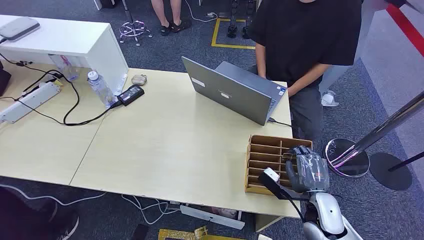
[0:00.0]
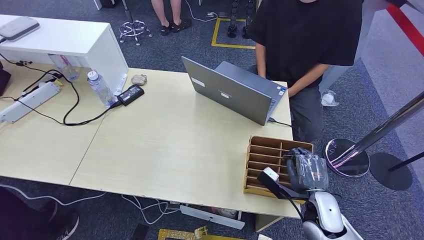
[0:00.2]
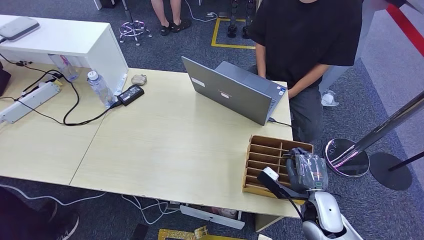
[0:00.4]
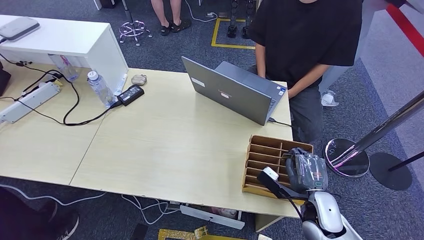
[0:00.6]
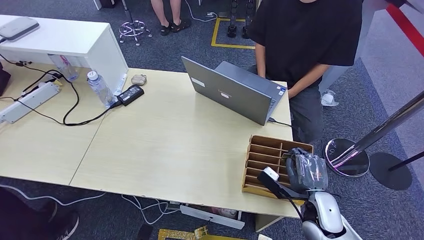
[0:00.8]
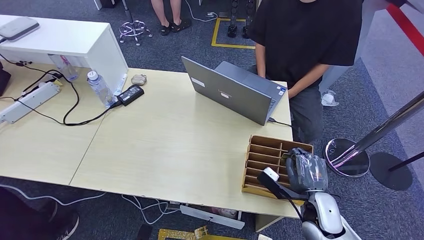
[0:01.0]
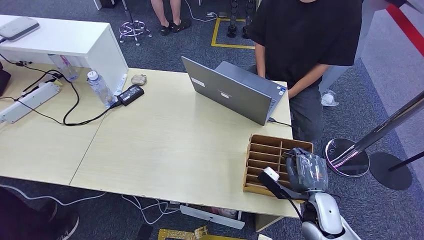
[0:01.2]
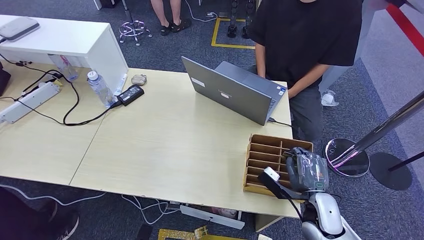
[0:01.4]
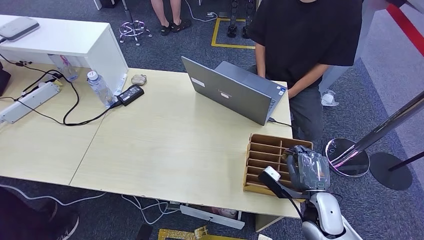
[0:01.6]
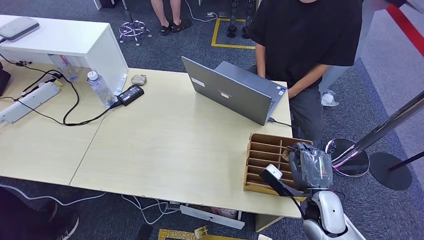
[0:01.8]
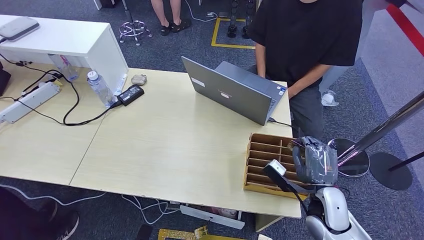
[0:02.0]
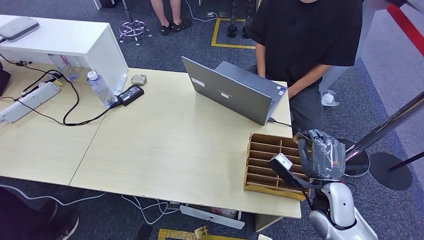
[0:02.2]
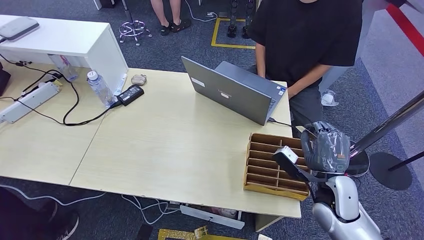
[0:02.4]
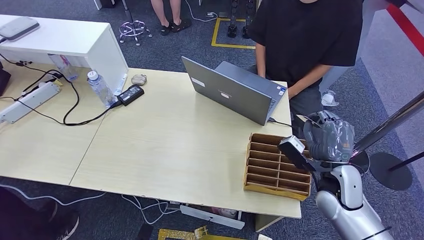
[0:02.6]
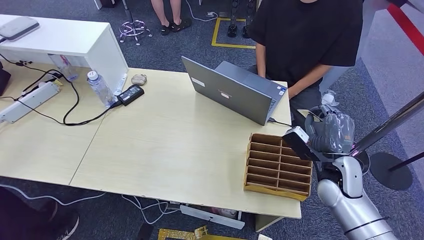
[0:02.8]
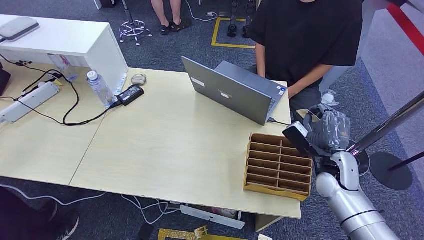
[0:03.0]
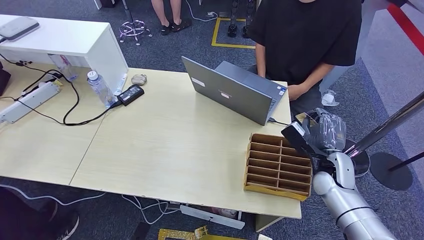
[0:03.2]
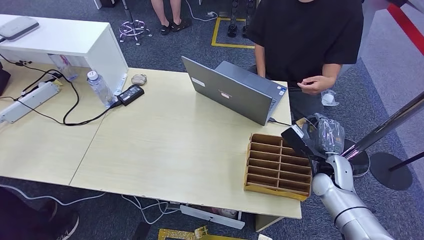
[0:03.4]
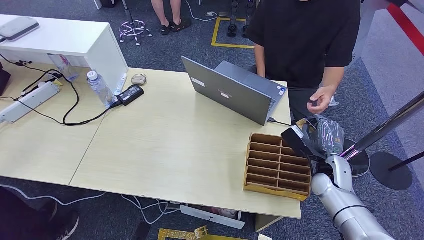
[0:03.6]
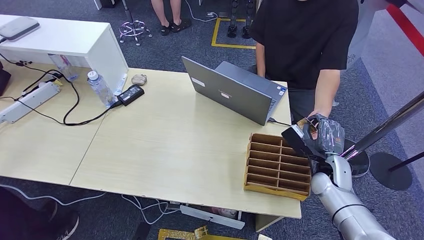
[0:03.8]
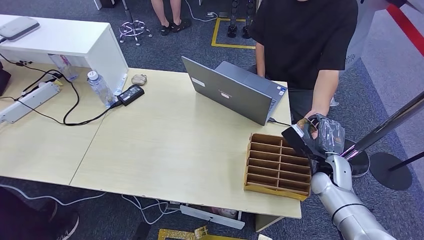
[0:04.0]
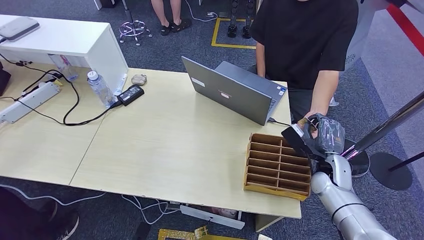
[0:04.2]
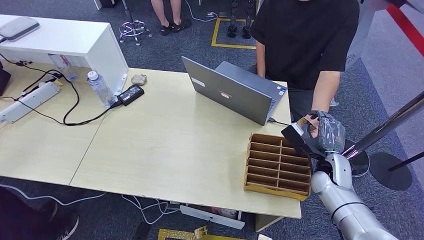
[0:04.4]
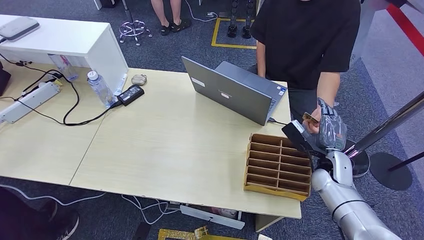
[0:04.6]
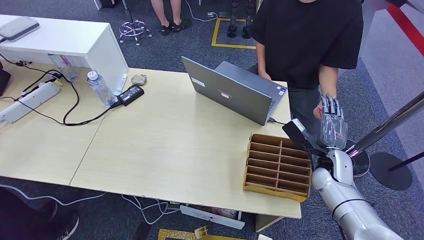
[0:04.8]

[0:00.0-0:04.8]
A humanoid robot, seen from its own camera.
Step, 0:00.0 to 0:02.6: Pick up the room card from the card holder.
Step, 0:02.8 to 0:04.8: Hand the room card to the target.
0:01.6 to 0:03.2: The right hand is displaced forward by about 10 cm.
0:03.2 to 0:04.8: The hands make only small movements.
